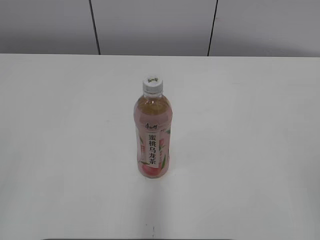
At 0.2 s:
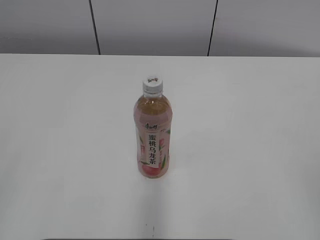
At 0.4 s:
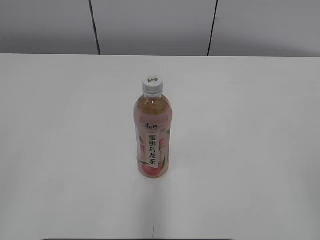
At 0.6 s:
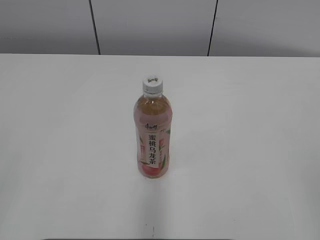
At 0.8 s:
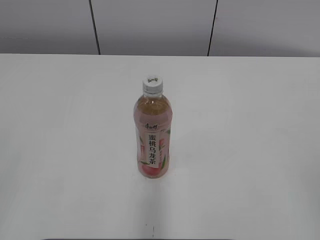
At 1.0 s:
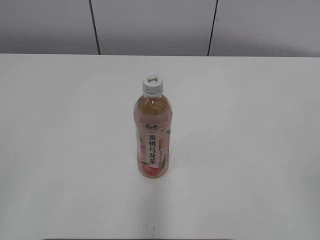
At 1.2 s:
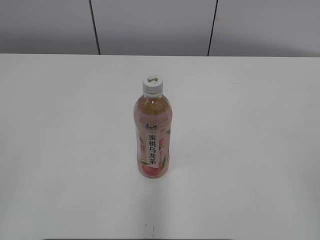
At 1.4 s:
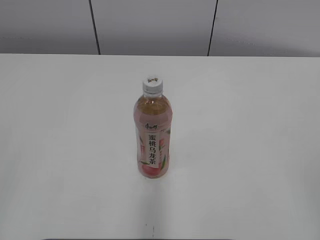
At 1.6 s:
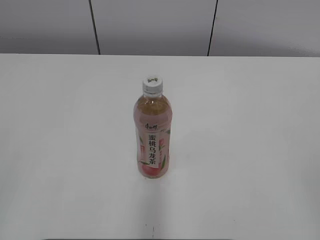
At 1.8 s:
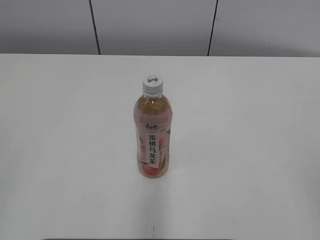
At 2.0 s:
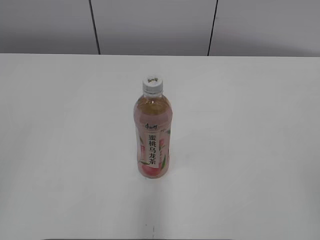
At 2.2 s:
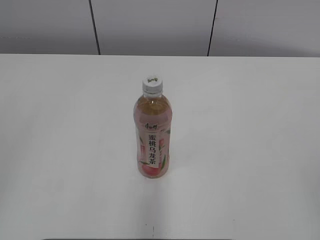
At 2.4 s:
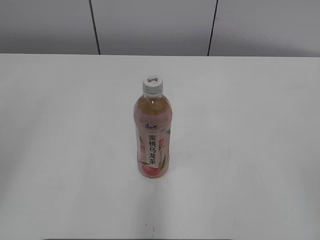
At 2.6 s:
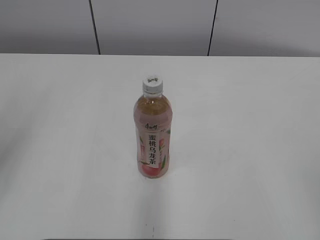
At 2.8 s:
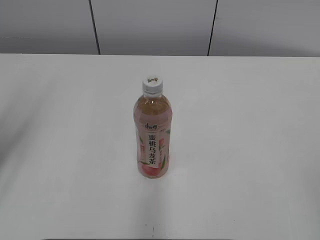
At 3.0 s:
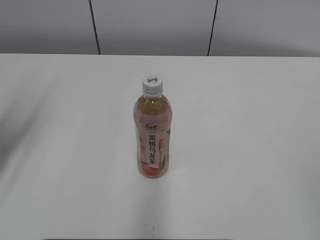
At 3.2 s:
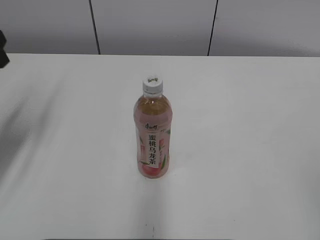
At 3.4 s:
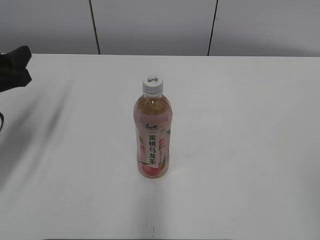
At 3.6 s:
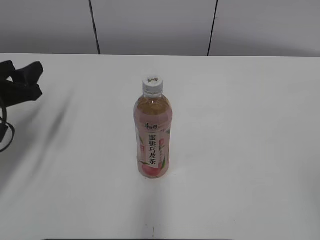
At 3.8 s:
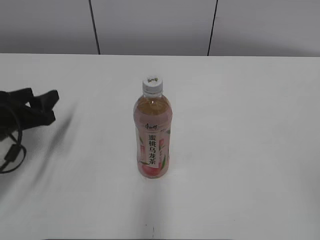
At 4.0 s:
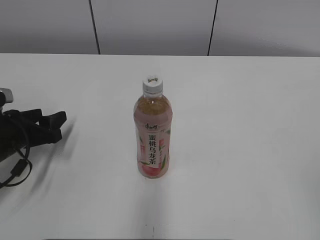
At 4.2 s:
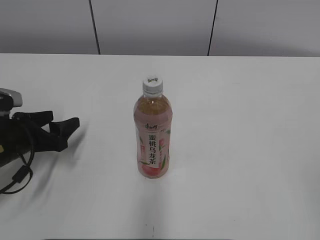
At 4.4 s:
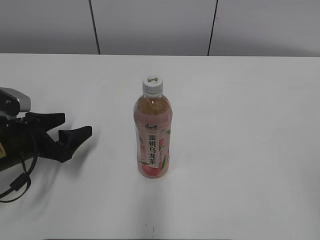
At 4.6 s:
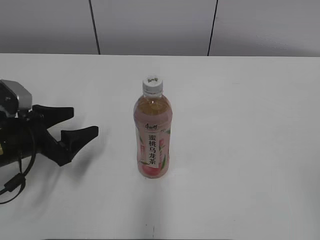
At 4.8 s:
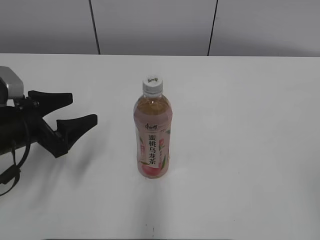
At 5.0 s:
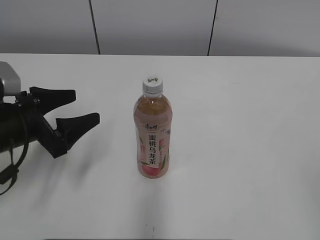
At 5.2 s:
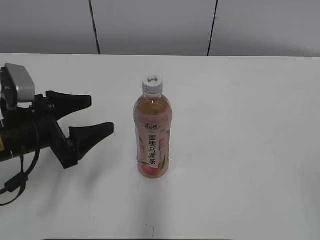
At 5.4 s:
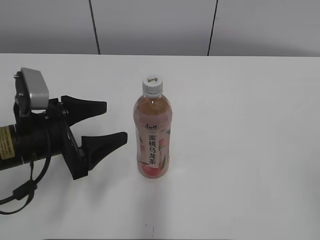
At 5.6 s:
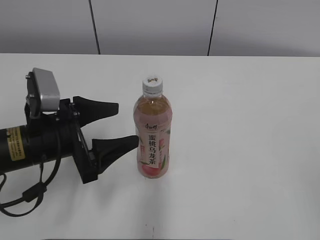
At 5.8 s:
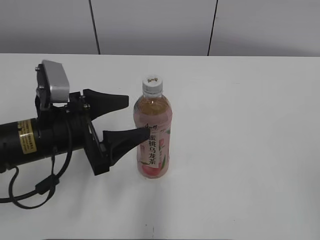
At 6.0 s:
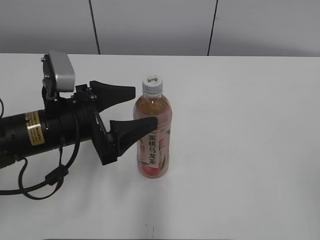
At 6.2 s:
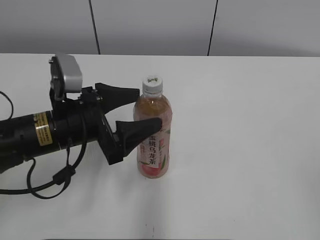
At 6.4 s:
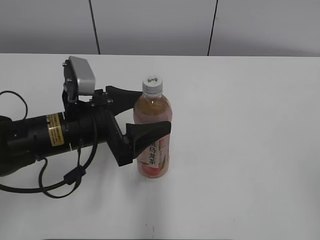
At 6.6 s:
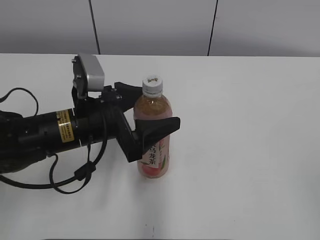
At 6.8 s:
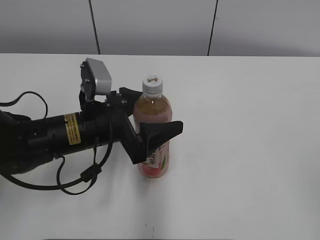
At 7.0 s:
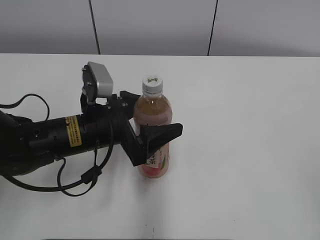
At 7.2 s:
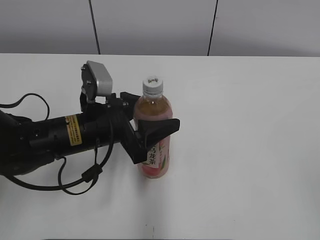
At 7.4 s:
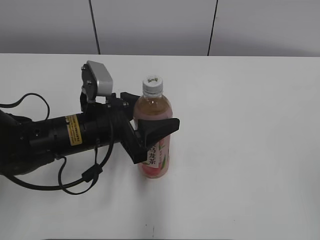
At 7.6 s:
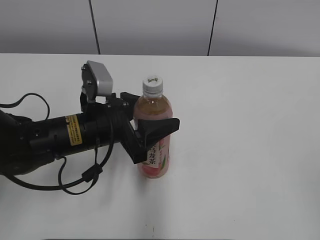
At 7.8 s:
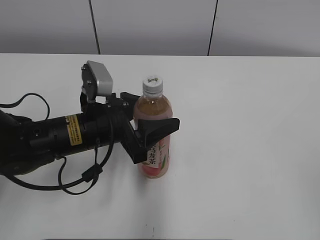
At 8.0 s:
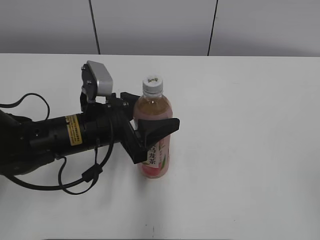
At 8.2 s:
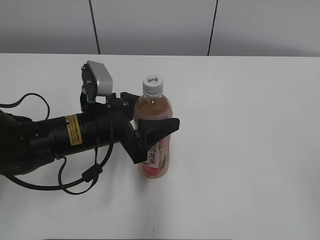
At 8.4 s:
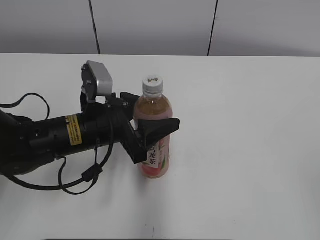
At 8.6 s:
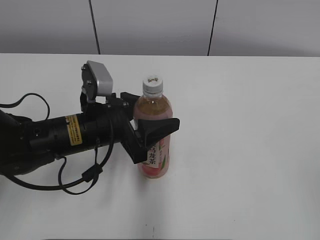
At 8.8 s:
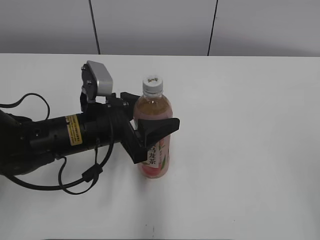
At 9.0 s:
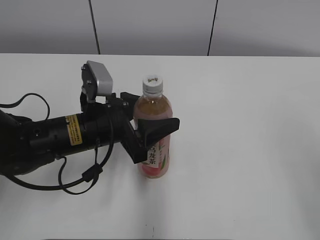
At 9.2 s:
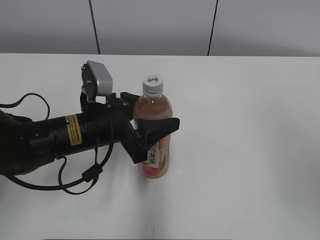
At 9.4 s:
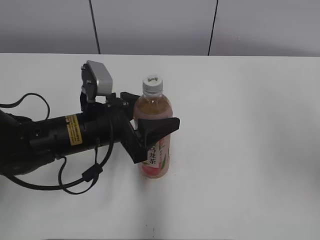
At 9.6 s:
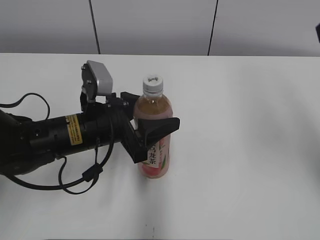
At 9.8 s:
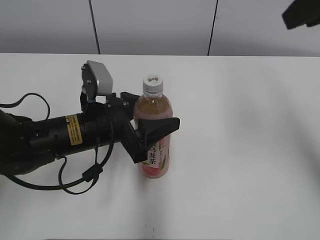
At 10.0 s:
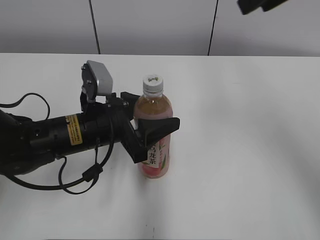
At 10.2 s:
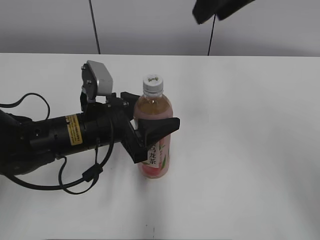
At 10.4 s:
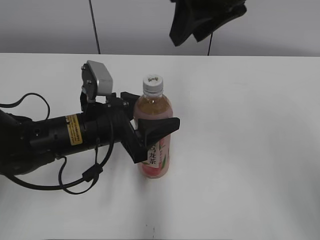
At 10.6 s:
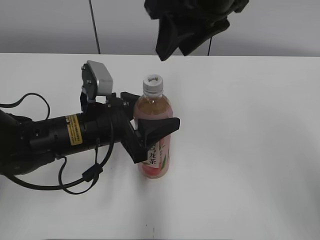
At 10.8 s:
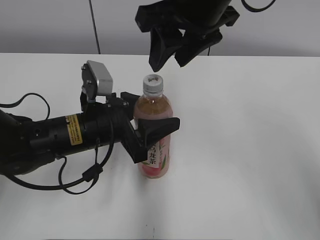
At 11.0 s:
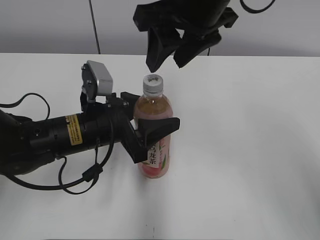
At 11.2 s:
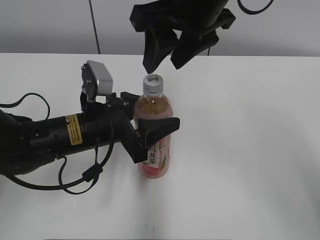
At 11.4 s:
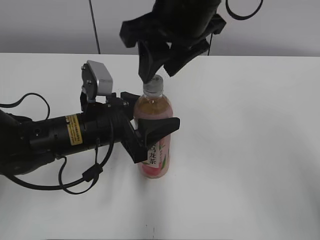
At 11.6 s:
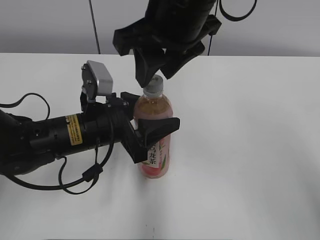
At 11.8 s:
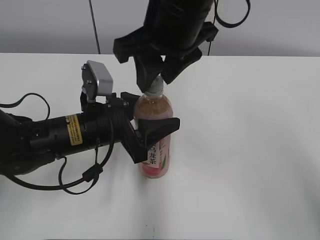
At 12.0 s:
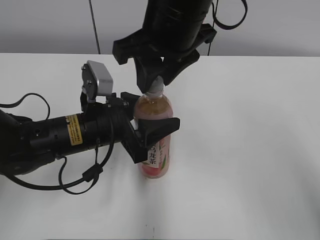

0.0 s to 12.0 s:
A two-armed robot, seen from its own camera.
Step, 0.0 to 7.6 s: Grab the Peach Oolong Tea with the left hand.
1.6 to 3.0 s: The left gripper moves forward, roughly 25 cm.
3.0 to 4.4 s: The left gripper shifts about 20 cm downward, and opens.
4.4 to 6.0 s: The left gripper is displaced to the right and upward by some 10 cm.
6.0 to 7.6 s: The left gripper ends up about 5 cm from where it was, and closes up.
9.0 to 10.4 s: The right gripper goes some 35 cm forward and to the left.
10.4 to 12.0 s: The right gripper goes some 10 cm to the left and downward.

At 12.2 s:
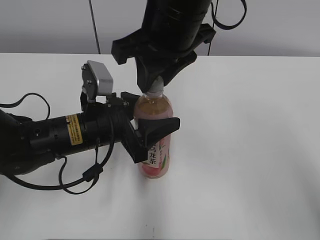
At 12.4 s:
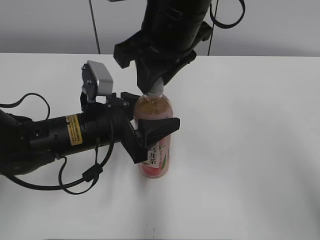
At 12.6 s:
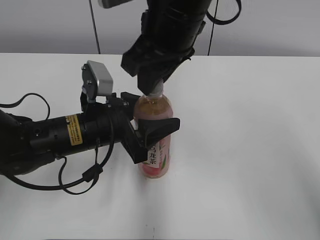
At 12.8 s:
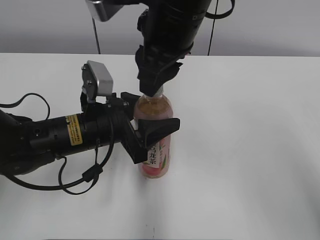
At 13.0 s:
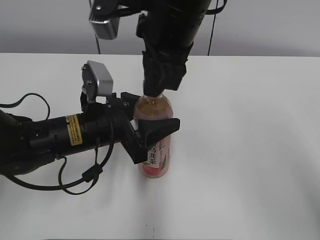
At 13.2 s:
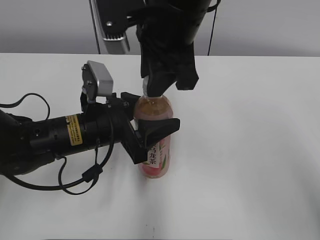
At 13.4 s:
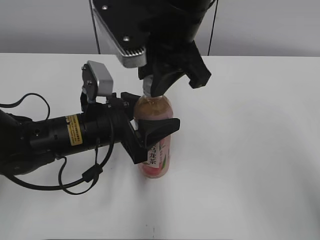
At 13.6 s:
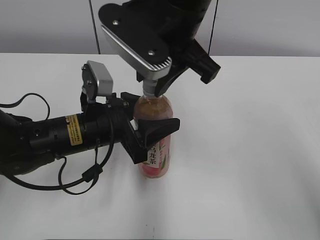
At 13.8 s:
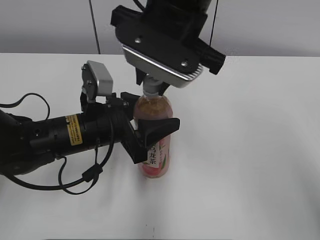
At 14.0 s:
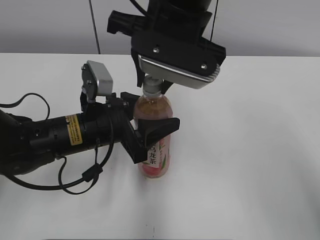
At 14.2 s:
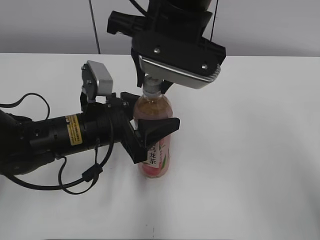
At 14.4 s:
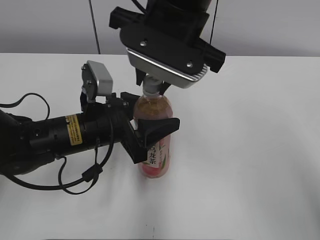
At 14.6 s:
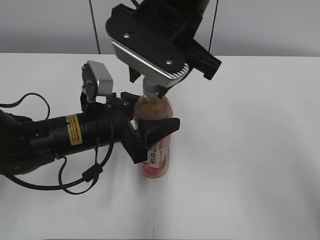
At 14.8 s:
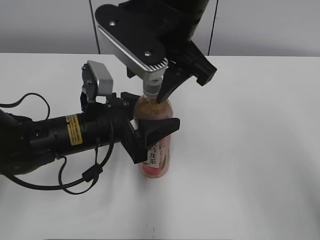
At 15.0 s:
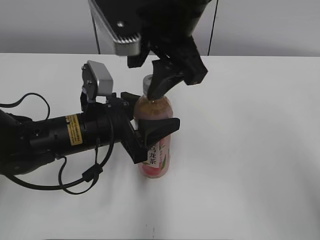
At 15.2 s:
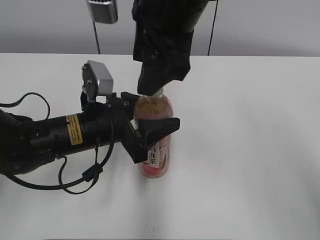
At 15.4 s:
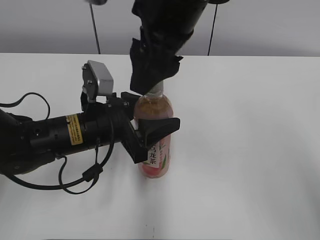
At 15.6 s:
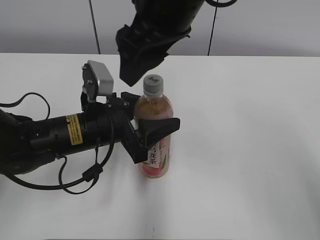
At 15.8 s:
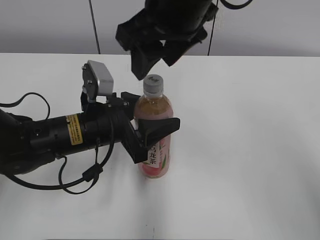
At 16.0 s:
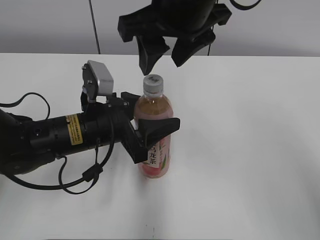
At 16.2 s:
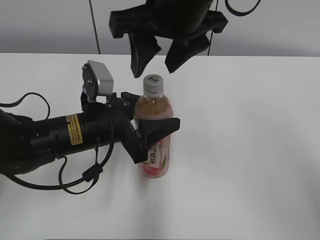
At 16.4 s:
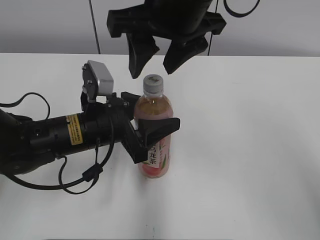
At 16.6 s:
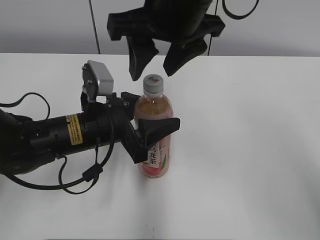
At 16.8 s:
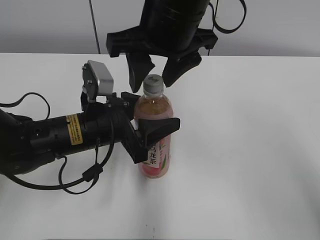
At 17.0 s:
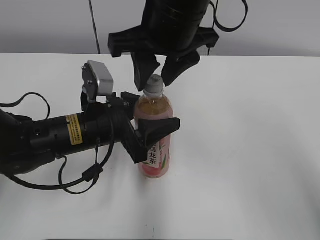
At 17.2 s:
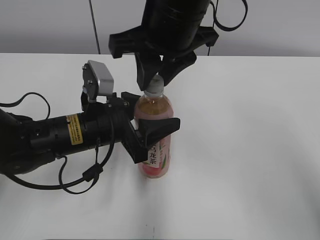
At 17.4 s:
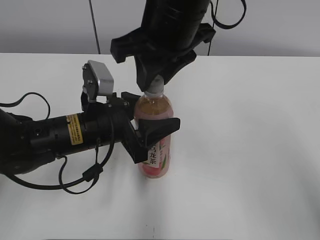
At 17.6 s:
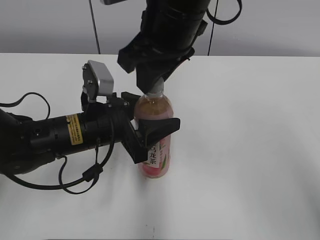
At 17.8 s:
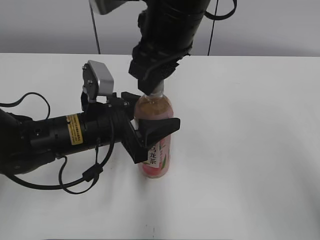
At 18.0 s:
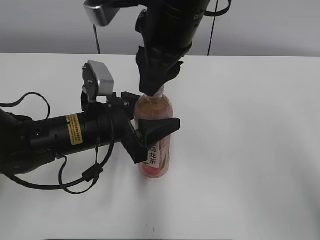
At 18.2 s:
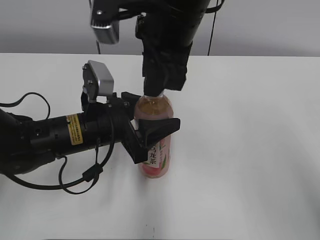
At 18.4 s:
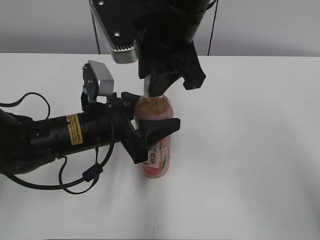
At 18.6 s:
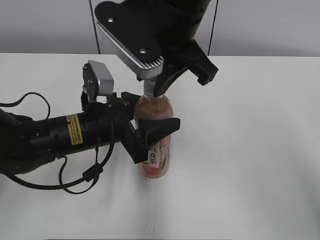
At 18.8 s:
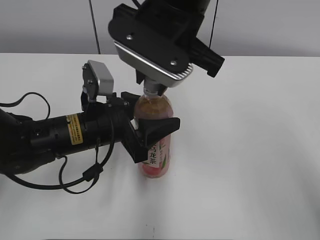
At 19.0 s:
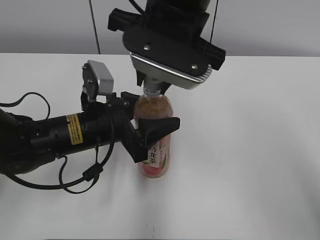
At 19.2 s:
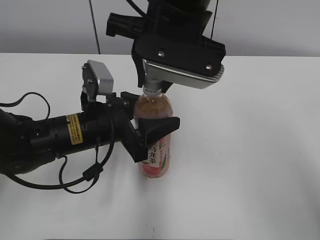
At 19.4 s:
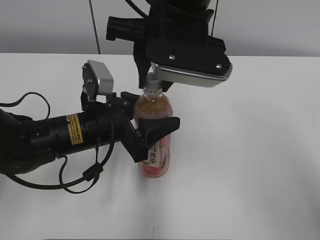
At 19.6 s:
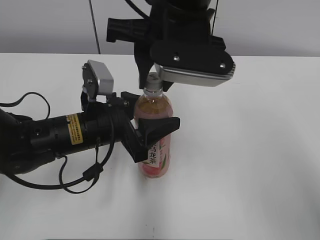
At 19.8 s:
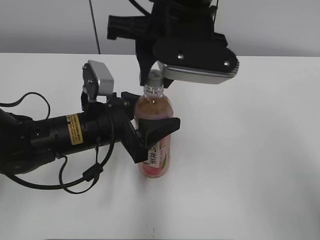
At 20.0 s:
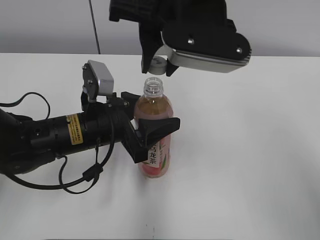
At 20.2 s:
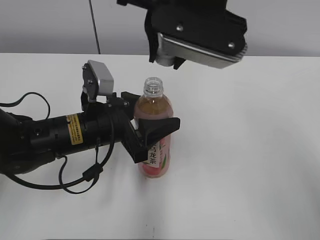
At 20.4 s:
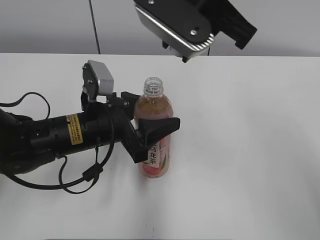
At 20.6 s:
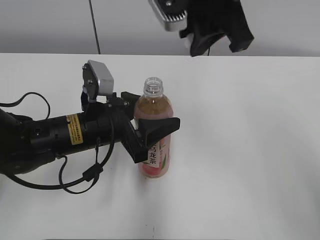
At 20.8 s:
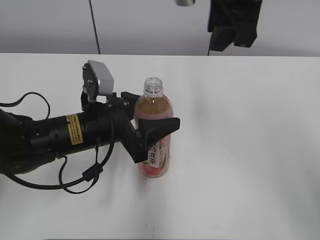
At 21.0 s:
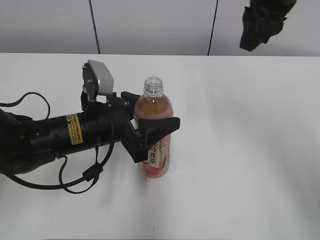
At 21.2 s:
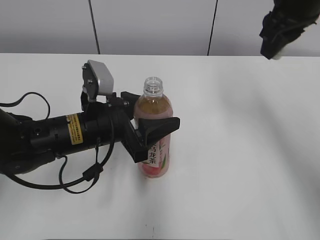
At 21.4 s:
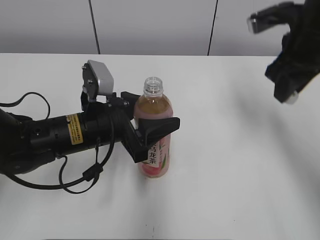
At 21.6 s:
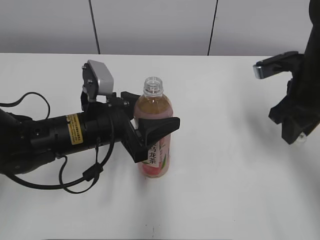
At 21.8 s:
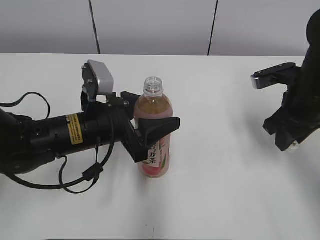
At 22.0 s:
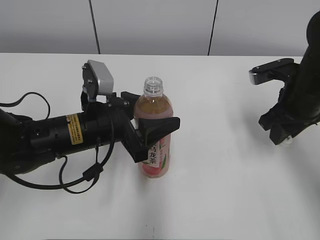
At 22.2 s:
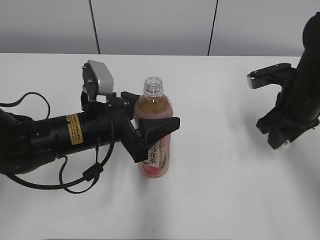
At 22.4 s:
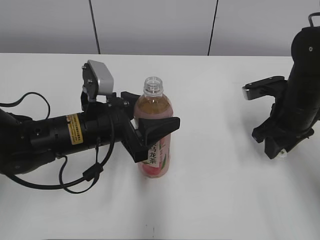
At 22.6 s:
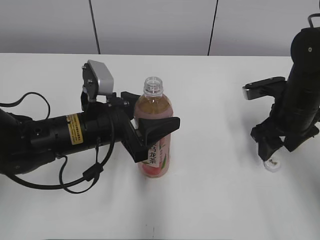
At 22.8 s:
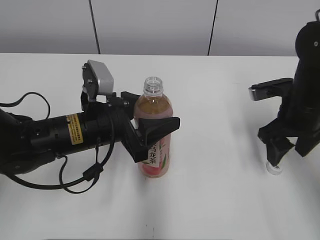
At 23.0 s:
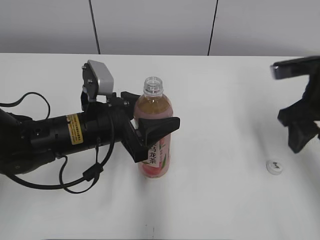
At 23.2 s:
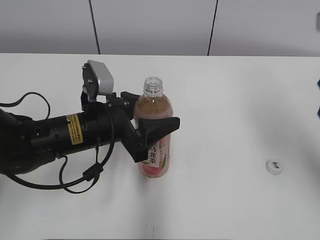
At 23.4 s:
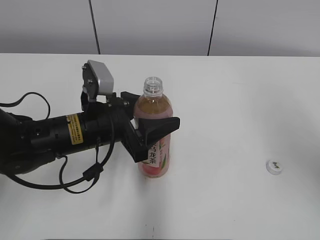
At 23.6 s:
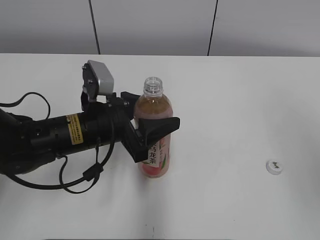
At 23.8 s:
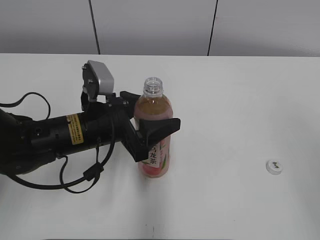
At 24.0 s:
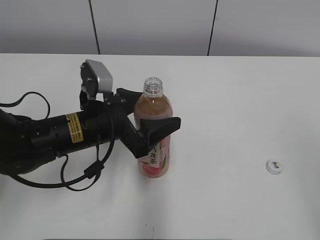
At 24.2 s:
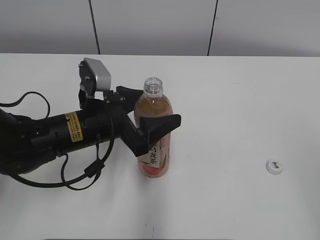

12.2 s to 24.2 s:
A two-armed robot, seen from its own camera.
Step, 21.0 to 22.8 s: Place the bottle cap on the right.
13.8 to 15.2 s: The right gripper opens up.
16.6 to 18.2 s: The right gripper closes up.
19.8 to 21.2 s: The right gripper is displaced to the right and forward by about 20 cm.
21.2 to 22.6 s: The right gripper travels downward by about 15 cm, and opens its fingers.
22.6 to 24.2 s: The left gripper opens up. The right gripper goes some 35 cm backward and upward.
